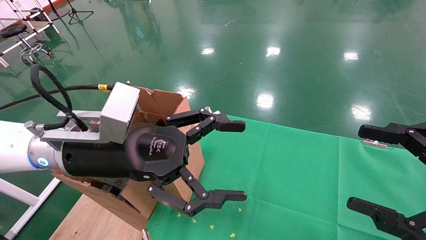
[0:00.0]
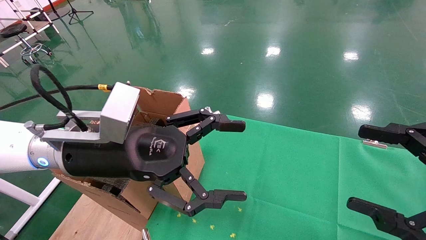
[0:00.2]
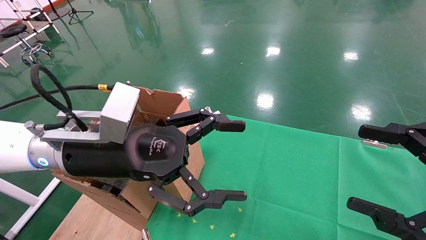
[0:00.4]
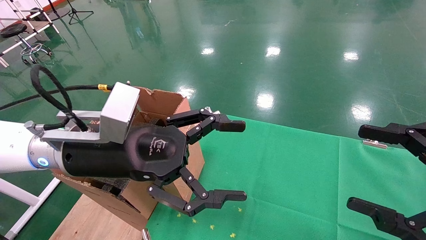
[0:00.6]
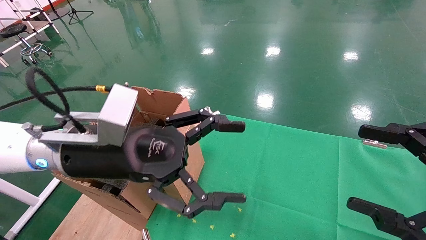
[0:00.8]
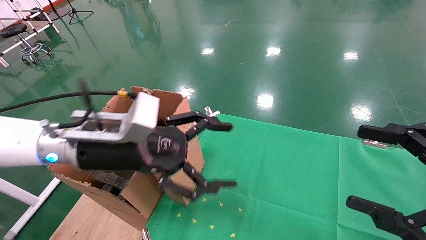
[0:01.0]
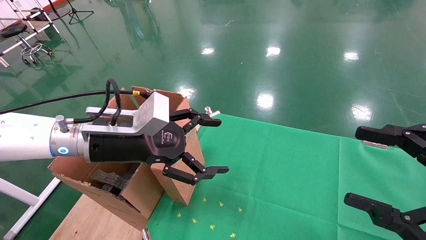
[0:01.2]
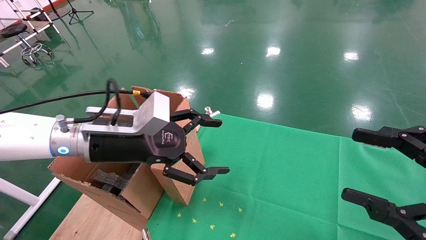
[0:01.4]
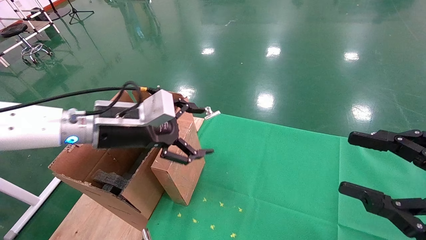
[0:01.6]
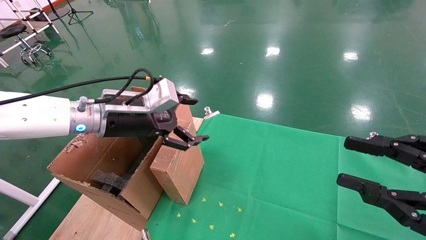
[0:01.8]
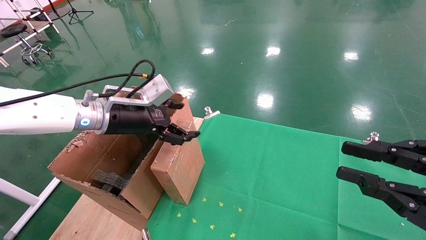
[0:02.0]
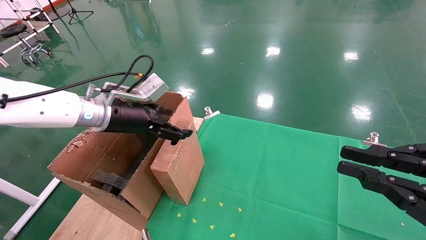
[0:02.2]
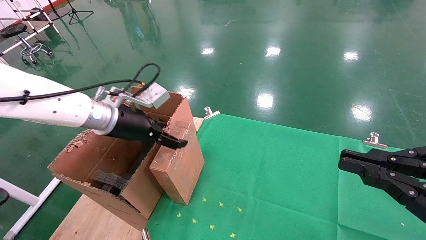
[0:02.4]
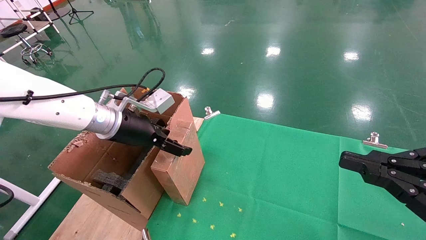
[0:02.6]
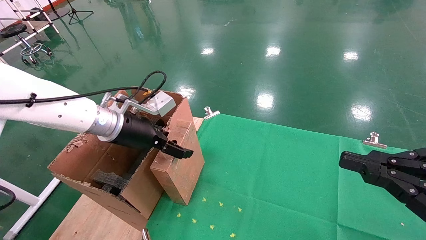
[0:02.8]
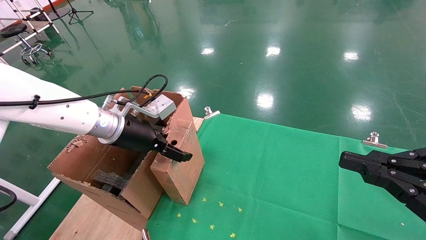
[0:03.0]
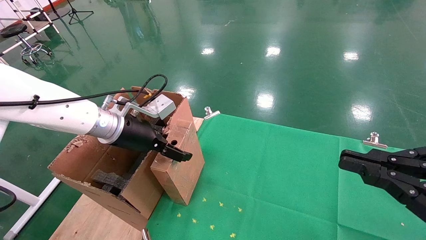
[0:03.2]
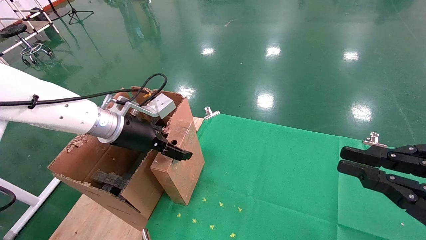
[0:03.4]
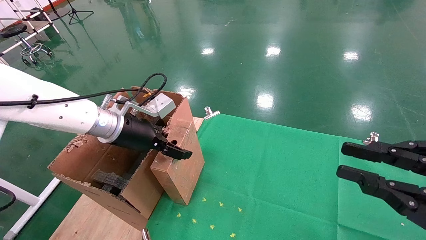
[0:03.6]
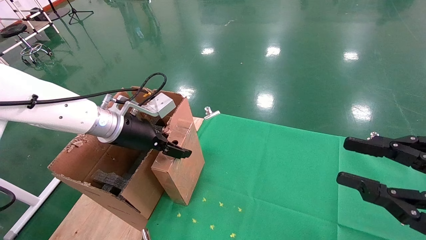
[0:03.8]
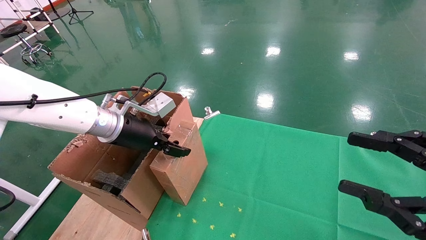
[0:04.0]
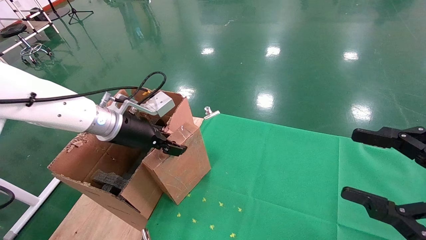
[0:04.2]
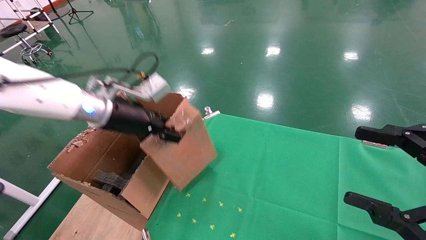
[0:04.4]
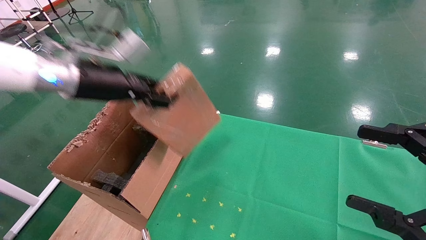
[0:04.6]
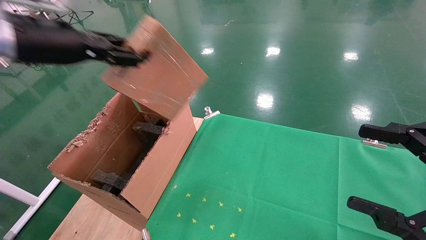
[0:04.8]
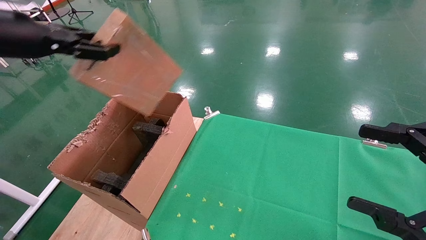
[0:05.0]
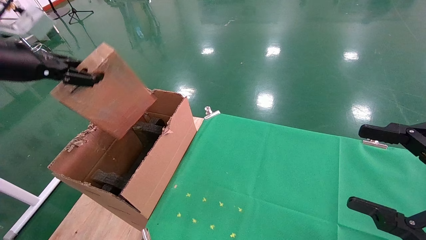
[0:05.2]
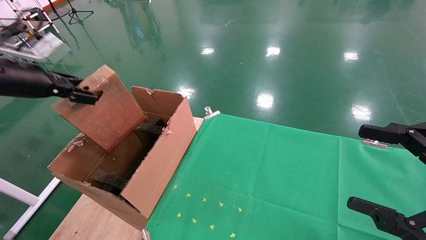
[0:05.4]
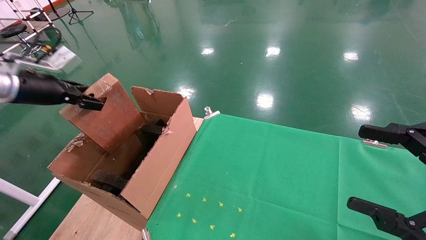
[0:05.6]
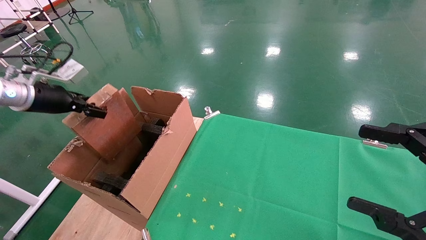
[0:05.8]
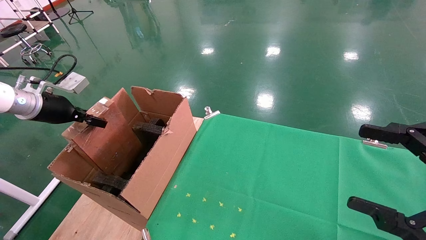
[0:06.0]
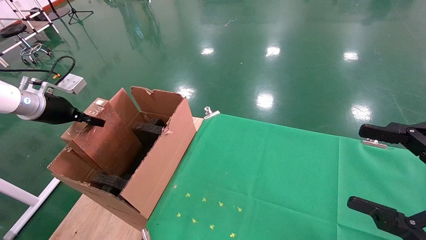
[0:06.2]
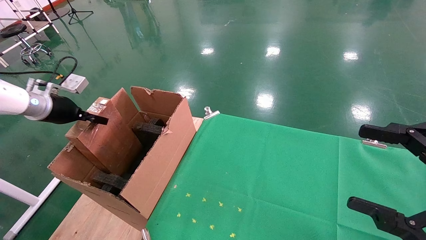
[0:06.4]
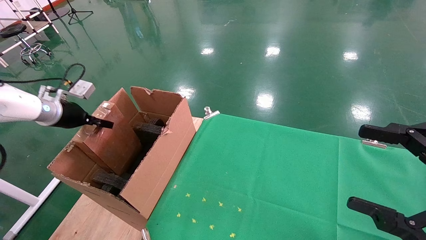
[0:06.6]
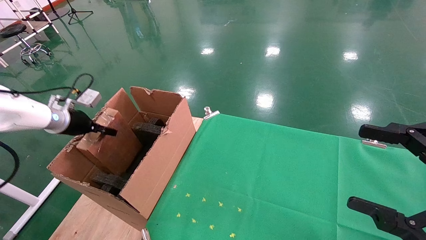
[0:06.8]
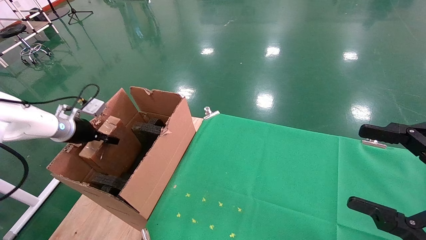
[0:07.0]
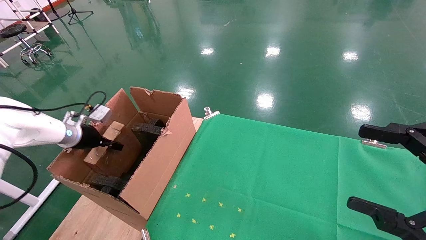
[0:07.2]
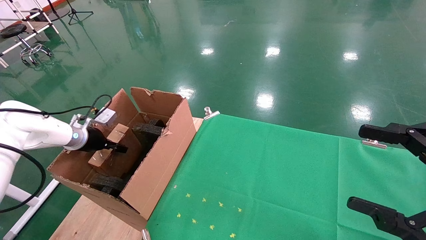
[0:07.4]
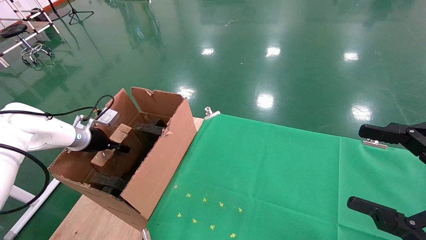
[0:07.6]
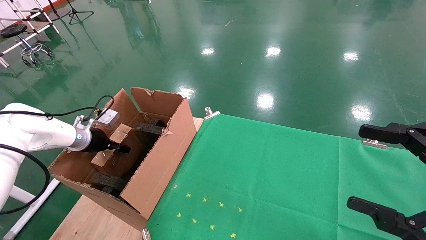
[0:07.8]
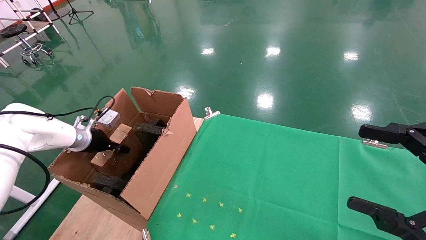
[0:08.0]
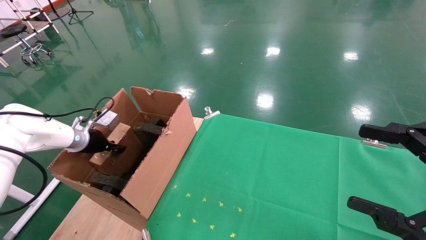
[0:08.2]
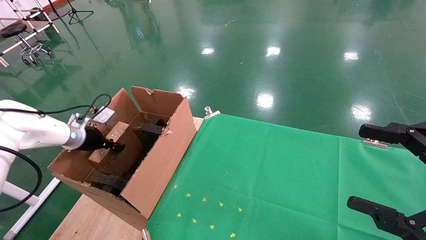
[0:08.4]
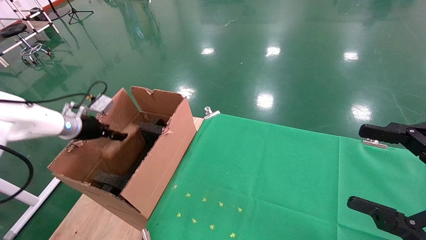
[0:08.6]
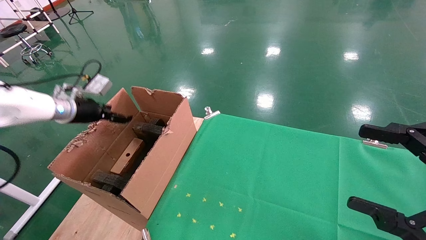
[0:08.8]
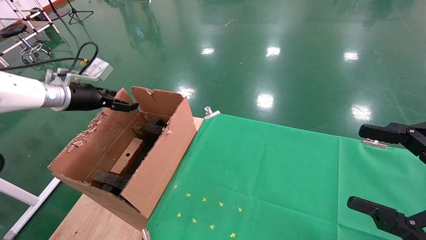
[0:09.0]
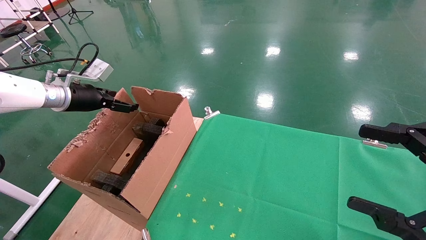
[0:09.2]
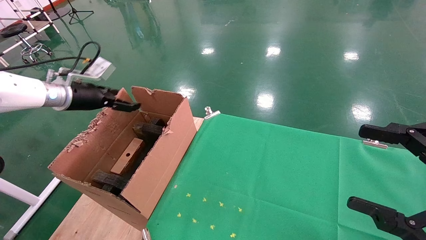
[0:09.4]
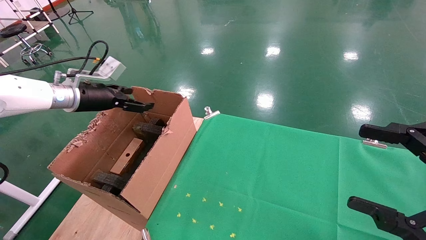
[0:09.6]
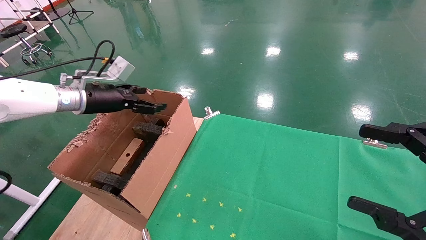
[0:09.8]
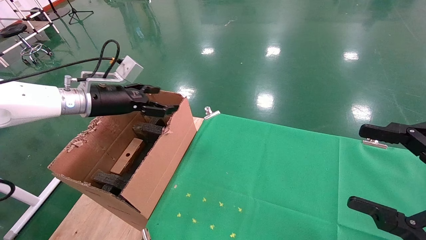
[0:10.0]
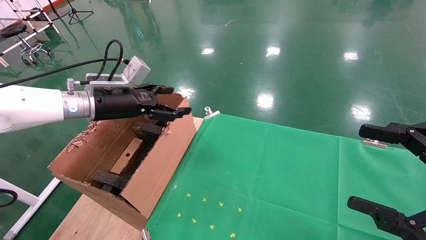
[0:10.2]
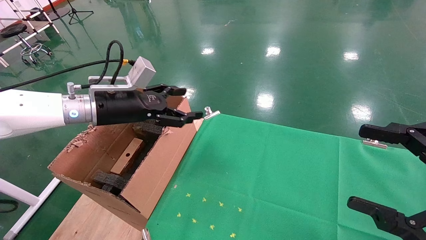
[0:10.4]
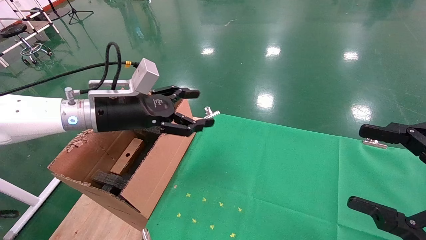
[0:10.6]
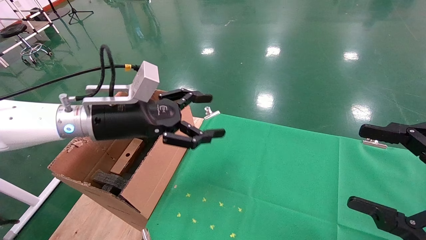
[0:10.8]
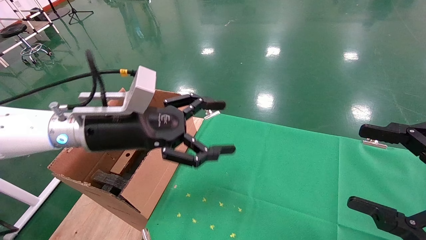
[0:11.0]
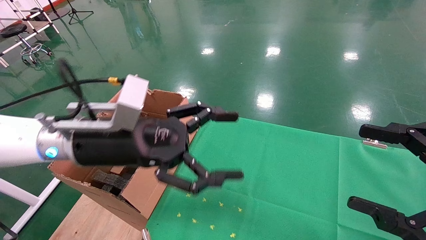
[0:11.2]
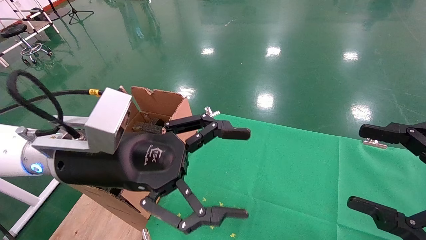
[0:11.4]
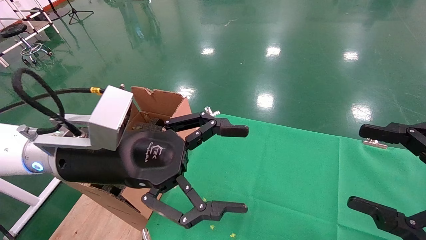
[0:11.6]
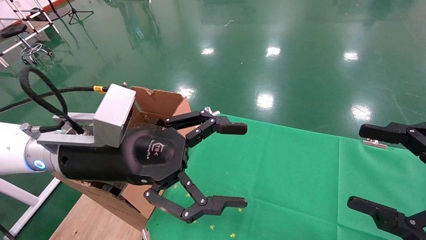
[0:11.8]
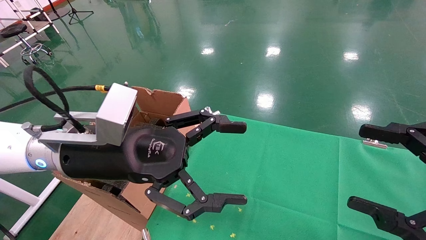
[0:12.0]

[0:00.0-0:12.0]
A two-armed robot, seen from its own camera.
Task of the whole recording: using a robotic arm to pick up a cardboard box and palace it the carton.
Step, 0:01.2 to 0:04.0: Pick up the mouse and the power cord paper box.
Step, 0:04.2 to 0:09.8: Place the mouse and the power cord paper box into the container.
0:00.0 to 0:01.6: The left gripper travels forward by some 10 cm.
0:01.6 to 0:03.0: The right gripper closes.
0:03.0 to 0:04.4: The right gripper opens its fingers. Meanwhile the left gripper moves upward, about 5 cm, and closes.
0:04.4 to 0:06.0: The left gripper travels to the left by approximately 20 cm.
0:06.0 to 0:07.6: The left gripper is displaced downward and forward by approximately 15 cm.
0:07.6 to 0:09.0: The left gripper goes approximately 15 cm upward, and opens its fingers.
0:09.0 to 0:10.4: The left gripper travels to the right by about 15 cm.
0:10.4 to 0:12.0: The left gripper goes some 15 cm backward and to the right.

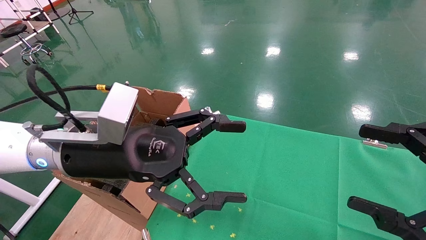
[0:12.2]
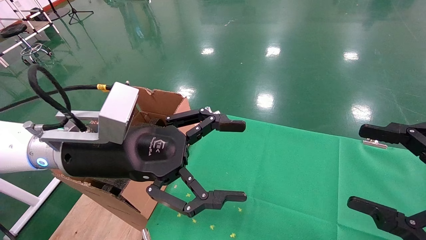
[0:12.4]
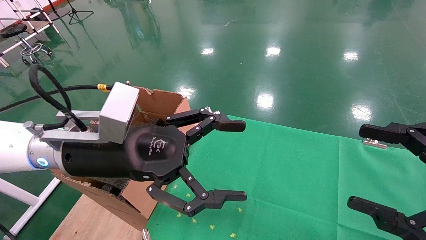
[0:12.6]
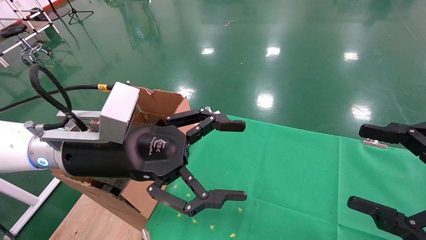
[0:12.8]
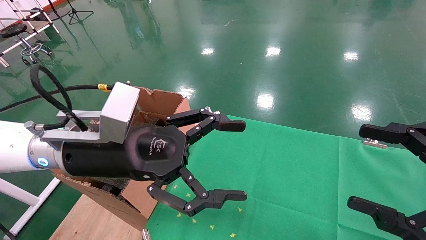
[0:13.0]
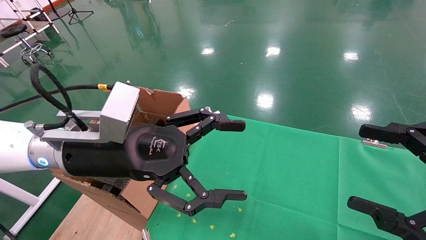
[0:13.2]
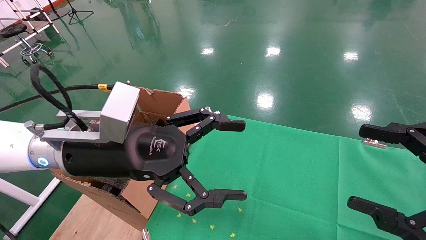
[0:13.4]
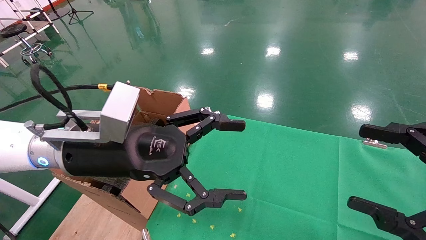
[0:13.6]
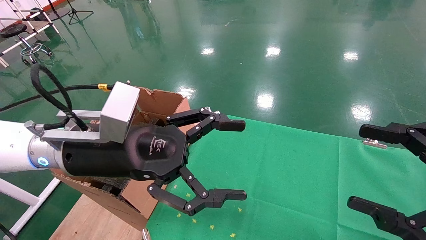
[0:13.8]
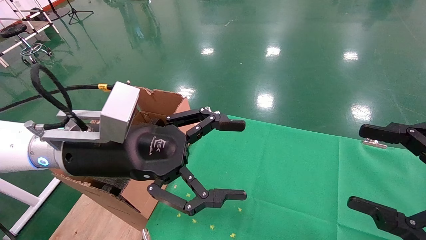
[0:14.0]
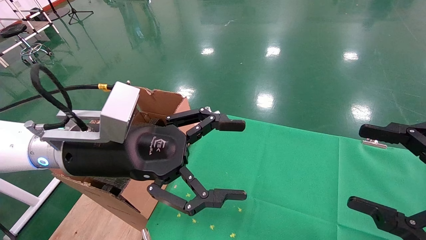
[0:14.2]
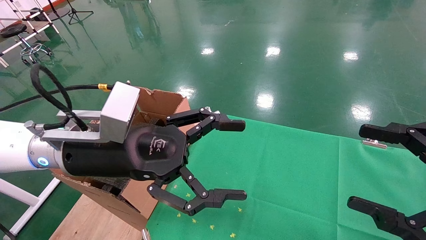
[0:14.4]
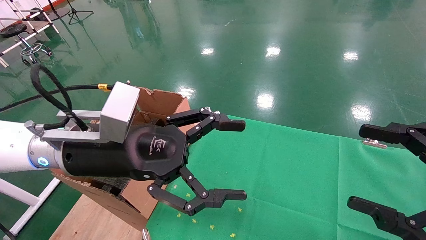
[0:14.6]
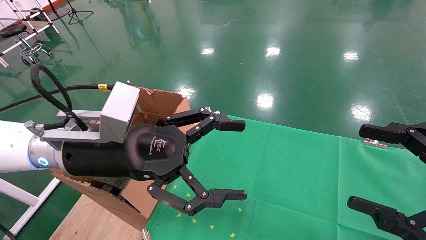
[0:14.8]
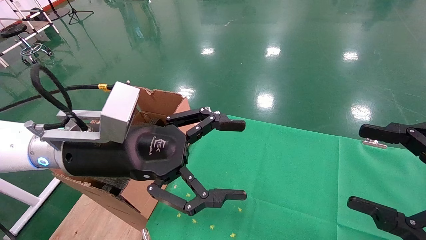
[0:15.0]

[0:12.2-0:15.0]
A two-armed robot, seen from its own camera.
Task of the whole recording: using a robotic arm to pick up a cardboard box and palace it the carton.
0:12.2 to 0:15.0: Neither gripper changes place.
